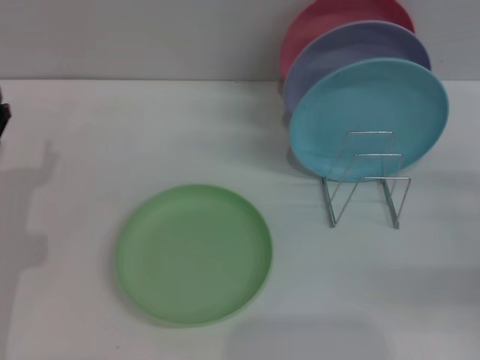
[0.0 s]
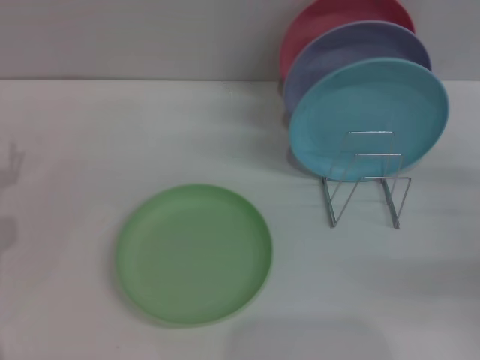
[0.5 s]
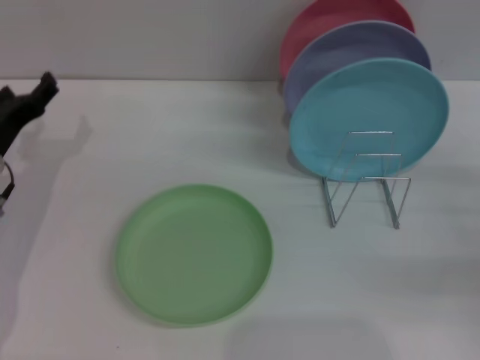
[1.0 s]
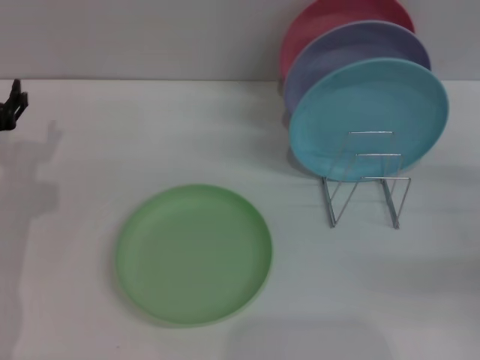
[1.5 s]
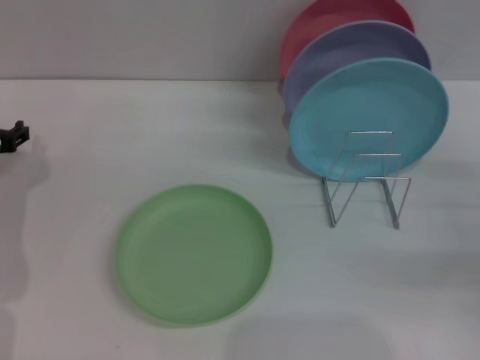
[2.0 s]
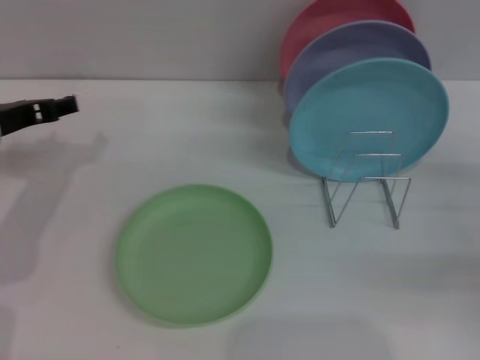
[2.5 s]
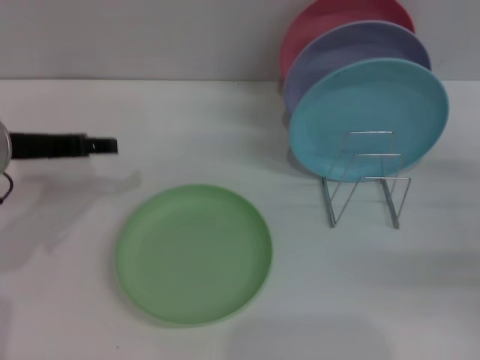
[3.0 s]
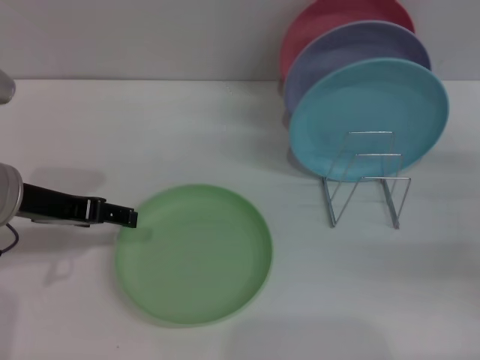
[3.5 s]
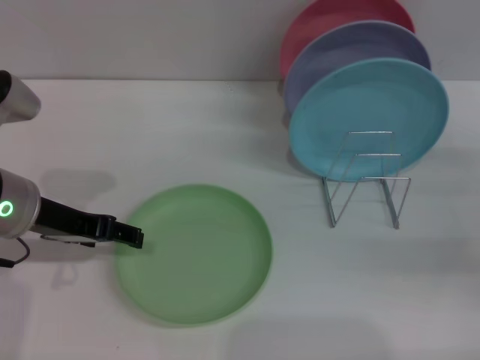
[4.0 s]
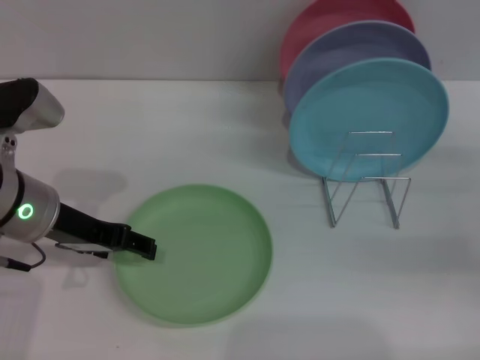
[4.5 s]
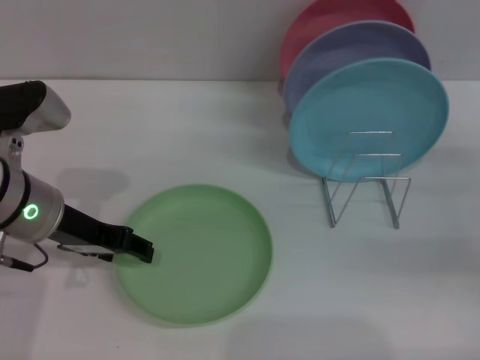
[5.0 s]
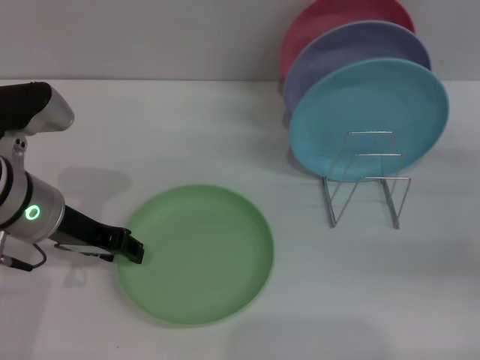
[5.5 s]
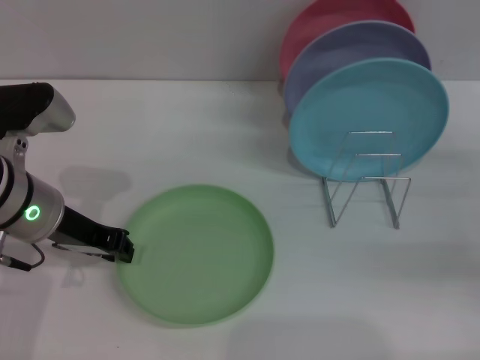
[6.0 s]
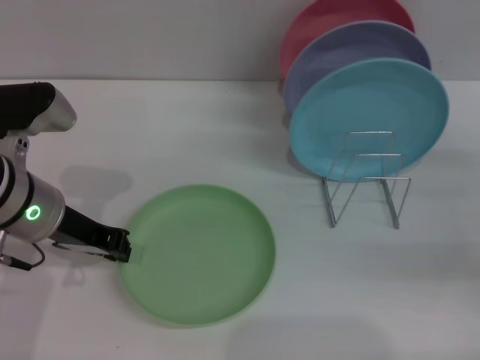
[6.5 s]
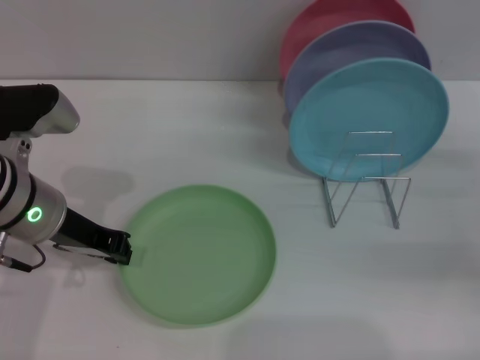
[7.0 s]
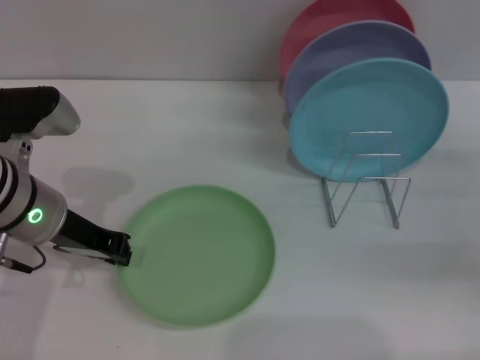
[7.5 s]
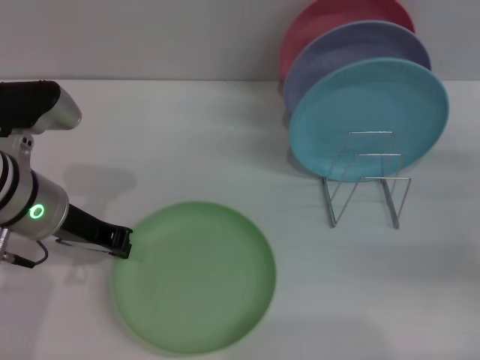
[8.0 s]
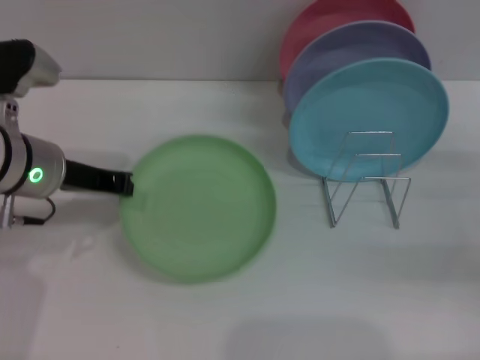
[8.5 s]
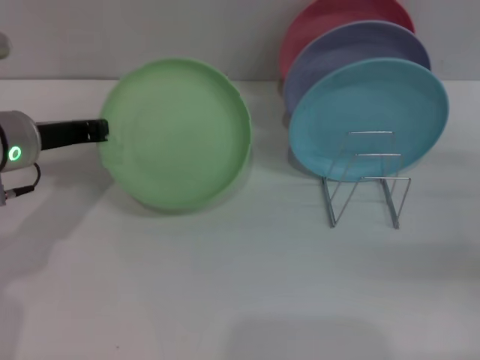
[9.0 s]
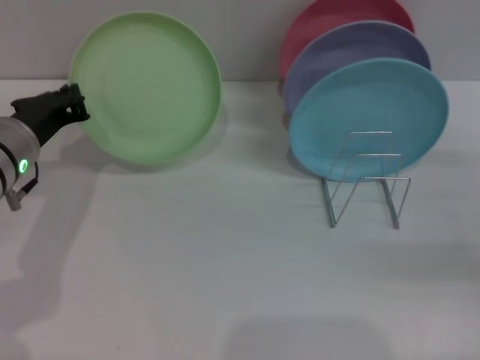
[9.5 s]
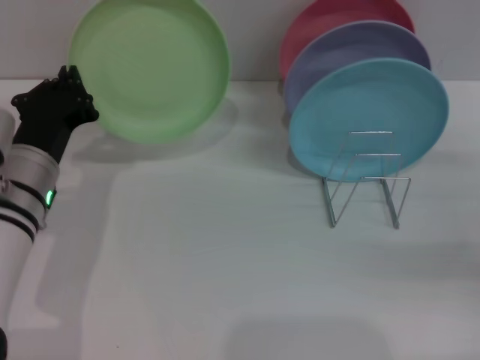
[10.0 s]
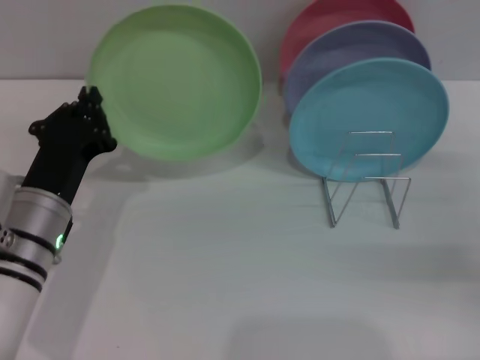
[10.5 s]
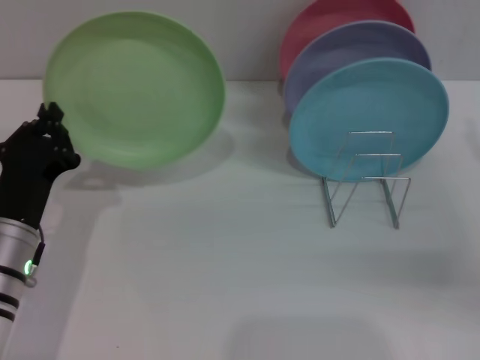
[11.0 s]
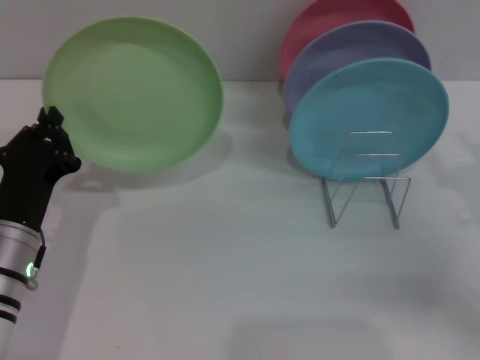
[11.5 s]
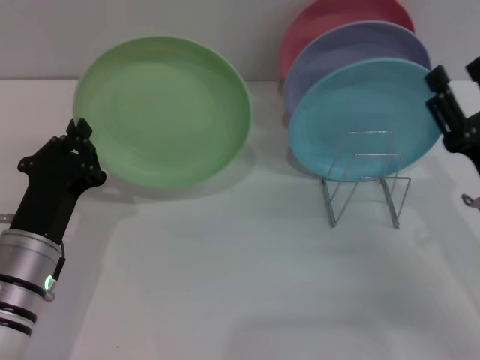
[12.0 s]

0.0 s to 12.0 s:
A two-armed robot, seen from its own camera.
Task of the whole recording: Grip the plate with one hand, pass it to the other, then set it on the shelf.
Step, 0.0 to 8.0 s: Pick up the plate with the left gripper.
0.0 to 2.0 s: The left gripper goes some 10 cm forward.
2.0 to 4.0 s: The left gripper is displaced to the right, upward and backward by roughly 10 cm.
4.0 to 6.0 s: The left gripper closes.
6.0 to 8.0 s: Both grippers stay put.
8.0 to 10.0 s: The left gripper ends up approximately 5 cm from where it was.
10.0 to 12.0 s: The left gripper heads backward, covering about 5 cm, while the right gripper travels to the left by approximately 15 cm.

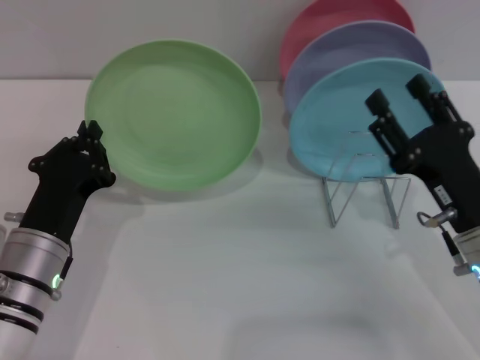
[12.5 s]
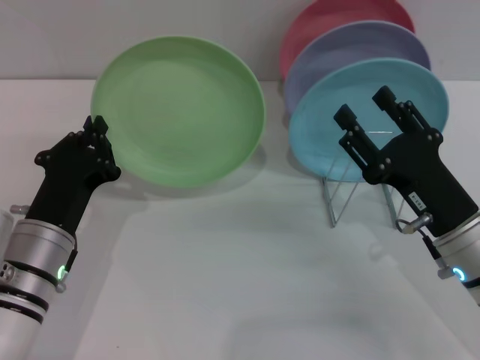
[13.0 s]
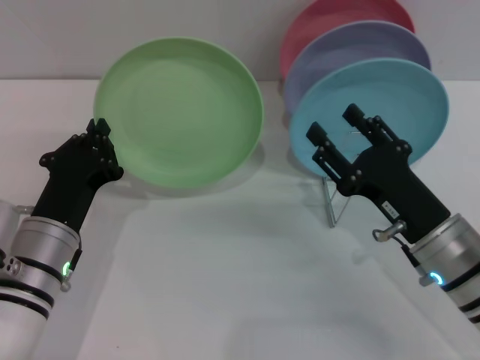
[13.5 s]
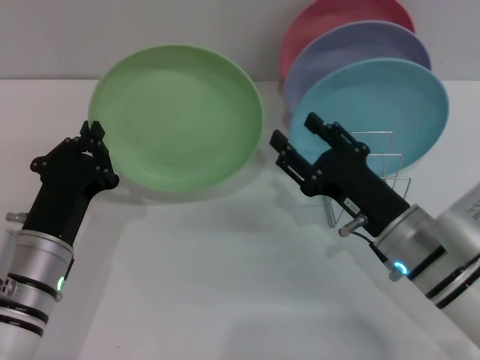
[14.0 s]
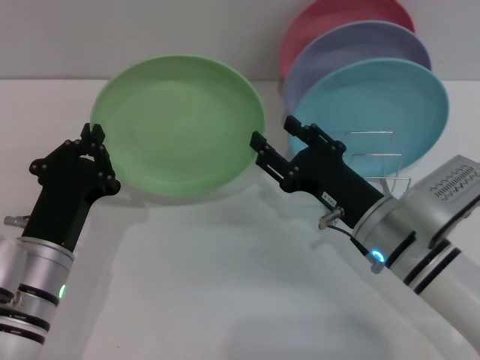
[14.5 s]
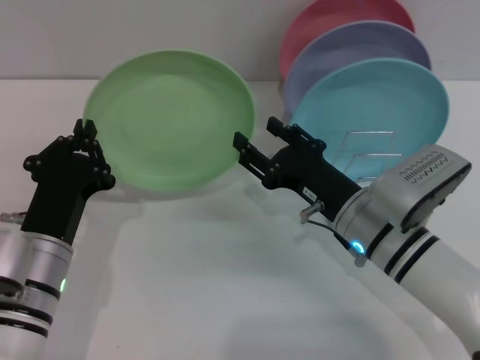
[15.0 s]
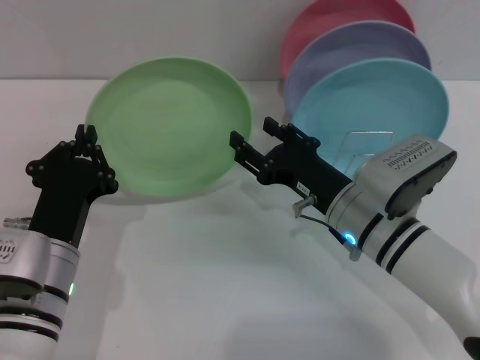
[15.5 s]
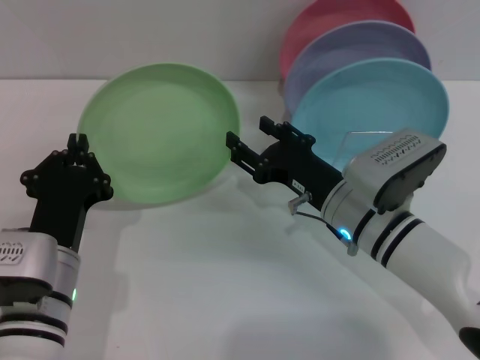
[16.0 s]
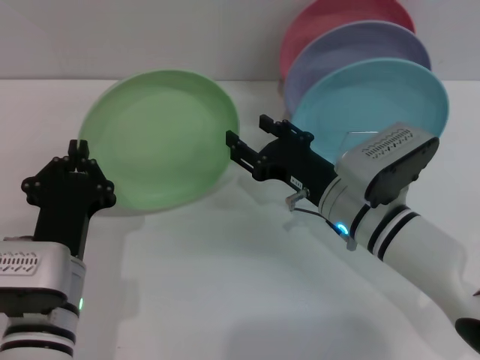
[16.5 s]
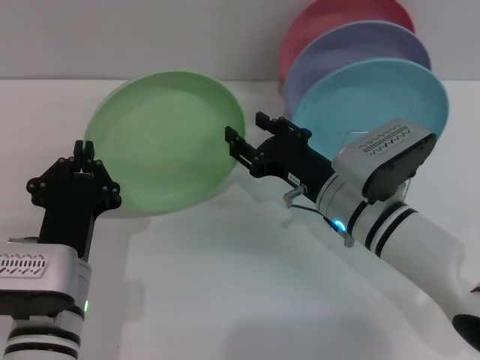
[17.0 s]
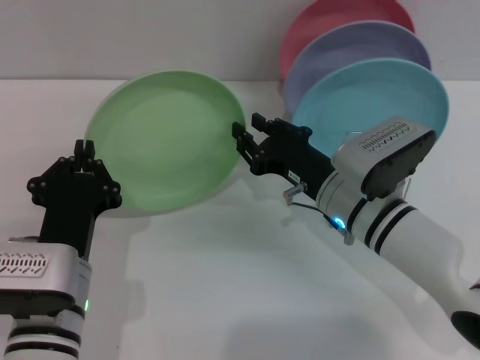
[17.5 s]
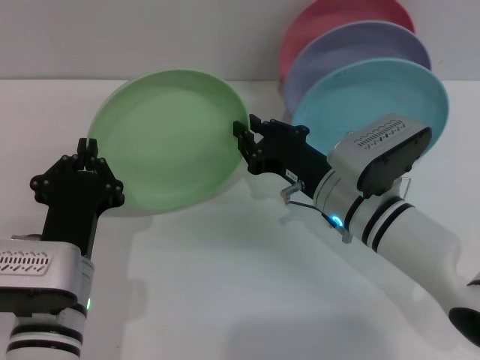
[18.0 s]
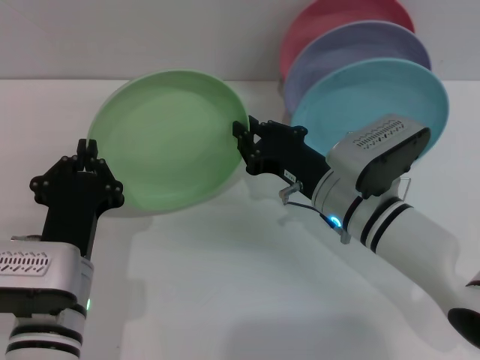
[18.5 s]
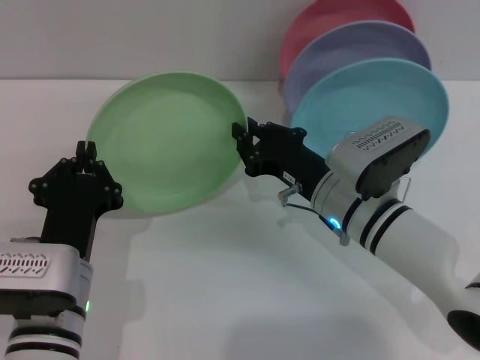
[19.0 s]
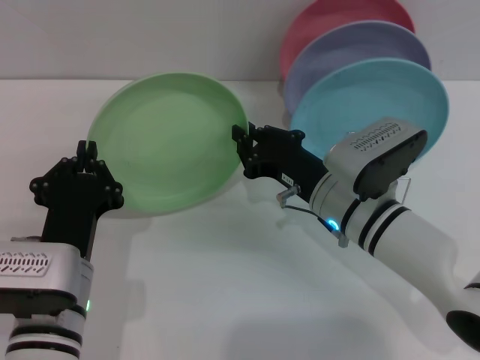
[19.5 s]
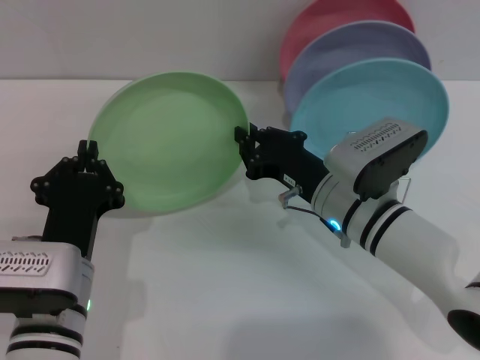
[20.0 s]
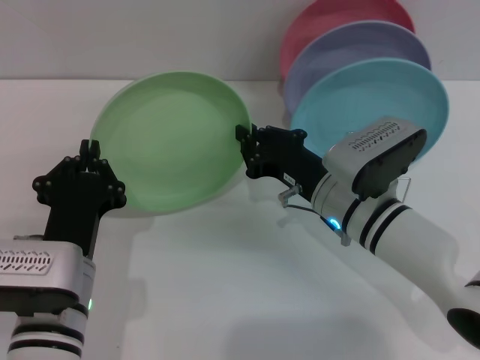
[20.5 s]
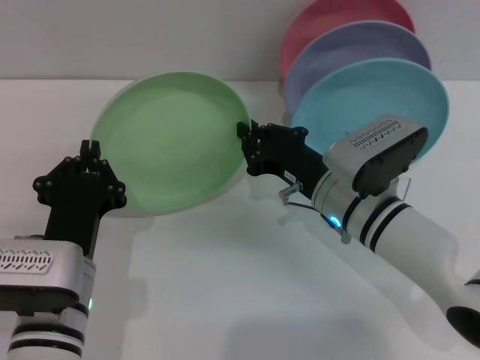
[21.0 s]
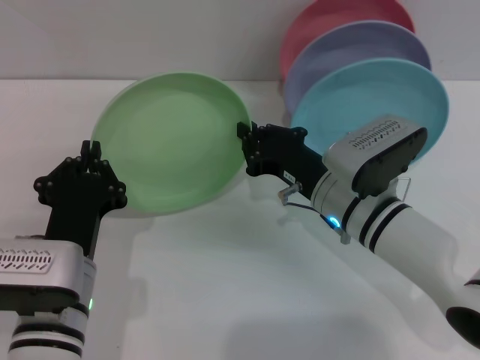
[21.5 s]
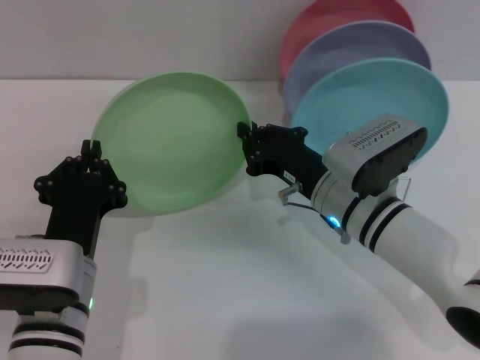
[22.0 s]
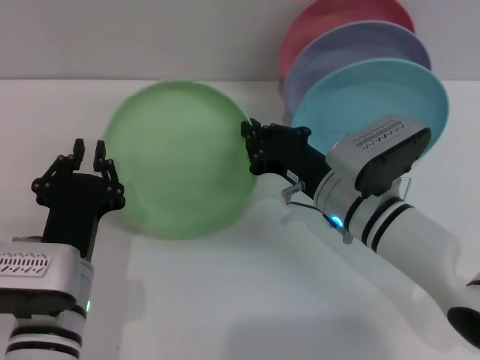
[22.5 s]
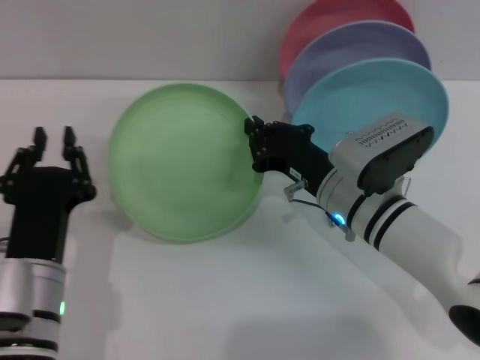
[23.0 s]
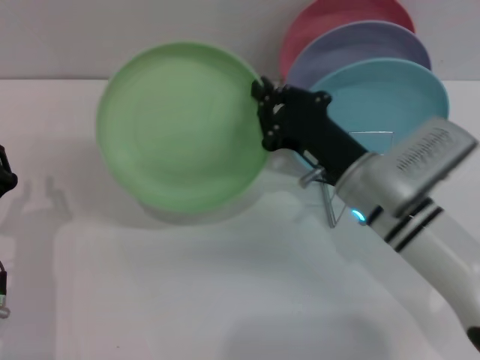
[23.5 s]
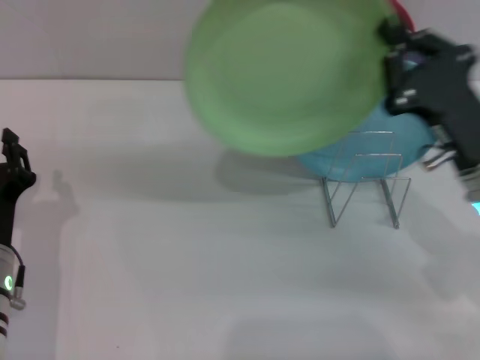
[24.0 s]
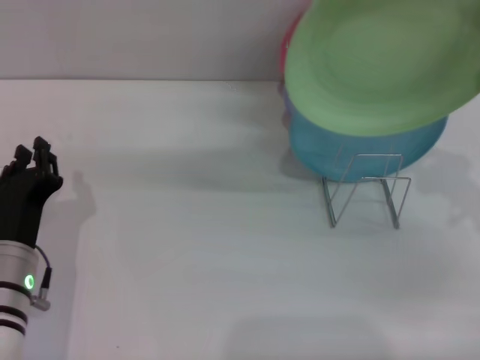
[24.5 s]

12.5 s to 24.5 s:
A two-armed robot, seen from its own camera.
Task of the whole recording: Grip the plate with one hand, pass it to the other, then set it on the shelf.
Step, 12.5 to 22.5 s: Pass the plate from the left gripper to the right gripper.
12.5 to 14.5 s: The right gripper travels to the left by roughly 5 cm.
14.5 to 16.5 s: The grippers move only a little.
16.5 to 18.5 s: The right gripper closes up.
18.5 to 22.5 s: Both grippers stay put.
22.5 to 24.5 s: The right gripper moves to the right and upward, roughly 20 cm. Meanwhile the left gripper travels to the left by approximately 5 cm.

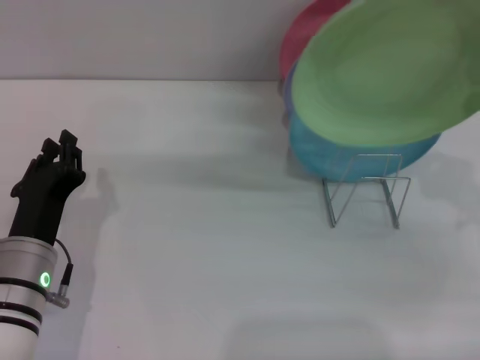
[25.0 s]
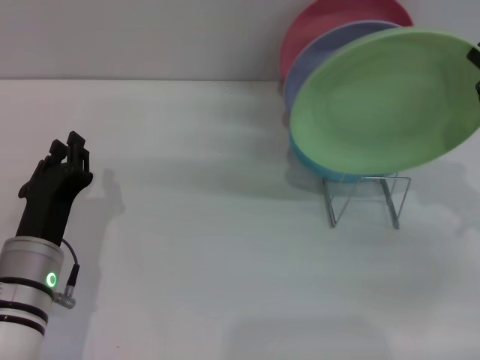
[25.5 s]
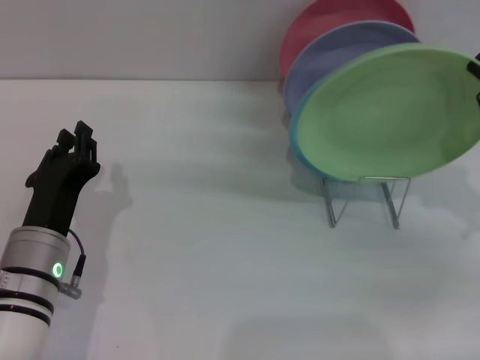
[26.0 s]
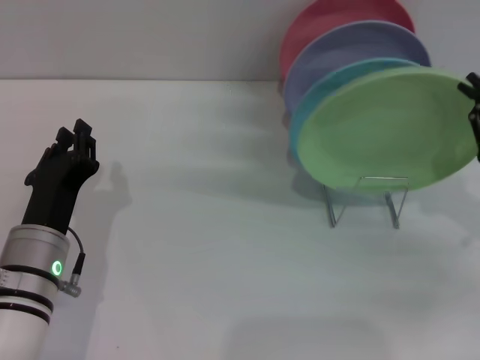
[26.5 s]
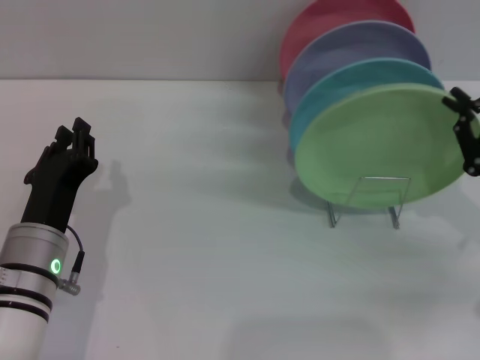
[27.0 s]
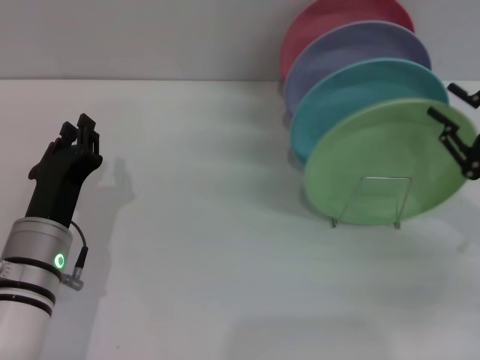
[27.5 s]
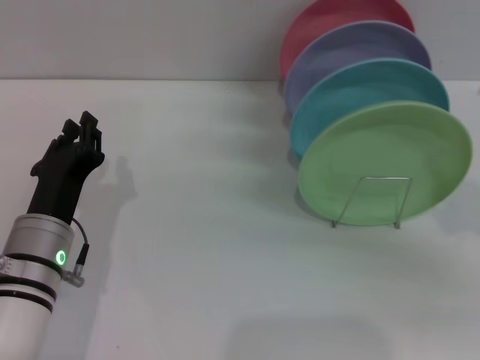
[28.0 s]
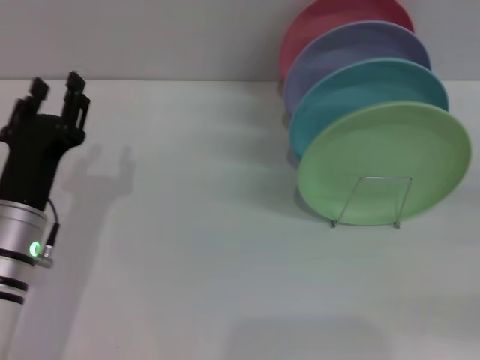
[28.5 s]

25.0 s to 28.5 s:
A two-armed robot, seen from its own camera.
Task of the whole recording: Grip the plate with one hand, pass it to the other, then set it on the shelf.
Step, 25.0 to 27.5 s: Place the plate on the shelf with the right gripper.
27.0 to 28.5 s: The right gripper moves to the right, some 10 cm, and opens its fingers.
